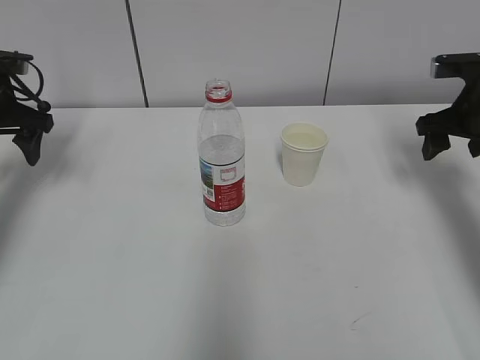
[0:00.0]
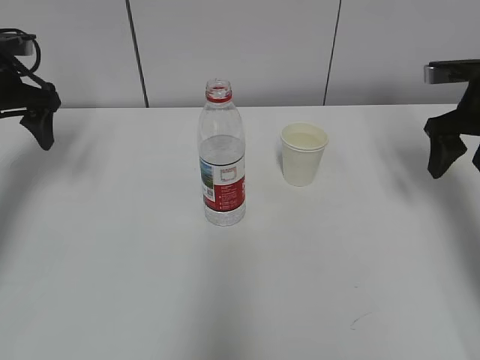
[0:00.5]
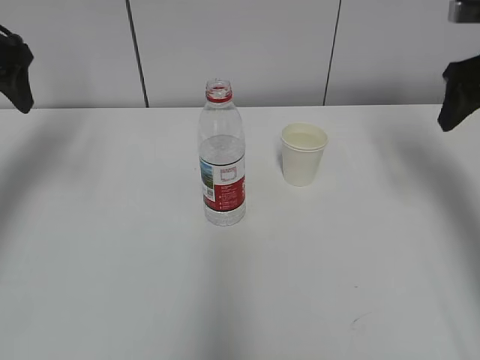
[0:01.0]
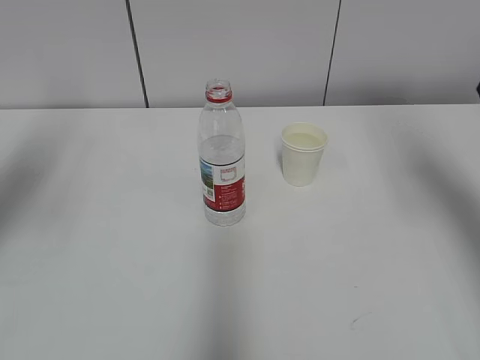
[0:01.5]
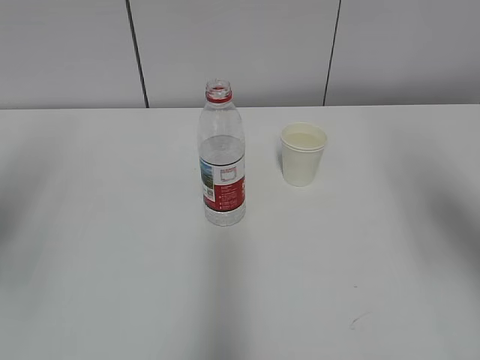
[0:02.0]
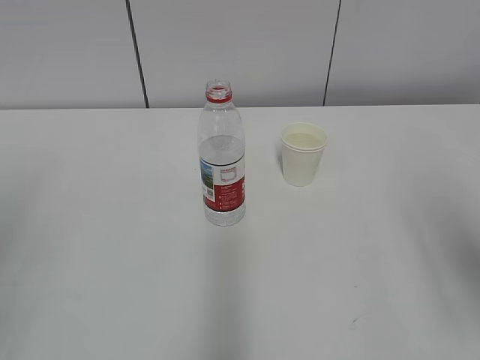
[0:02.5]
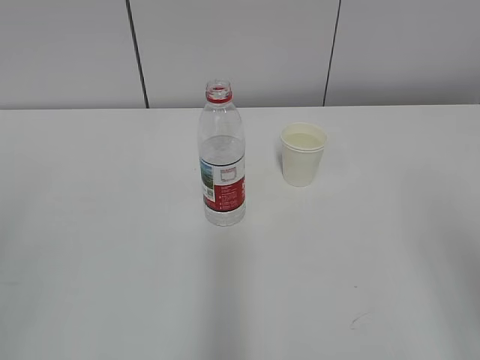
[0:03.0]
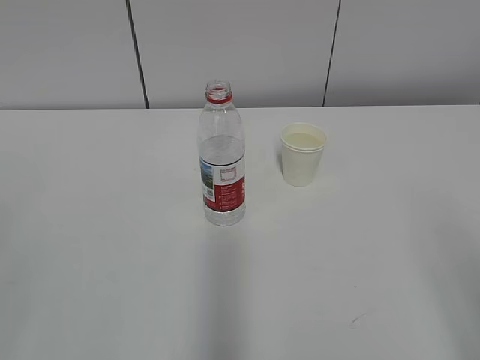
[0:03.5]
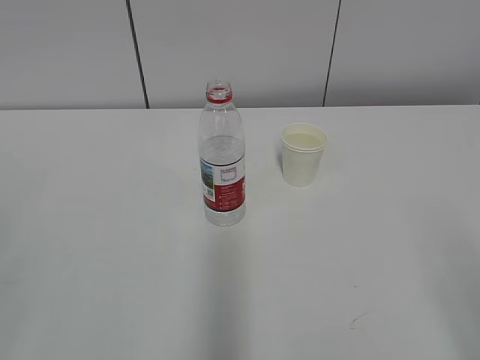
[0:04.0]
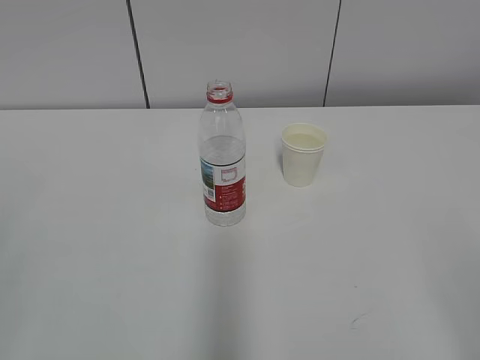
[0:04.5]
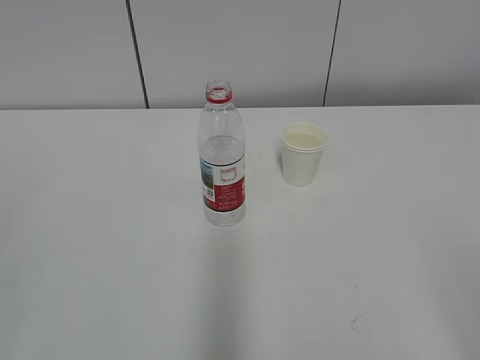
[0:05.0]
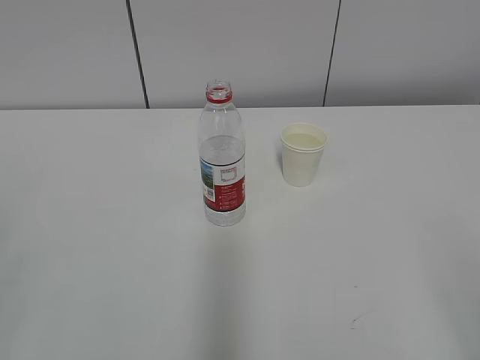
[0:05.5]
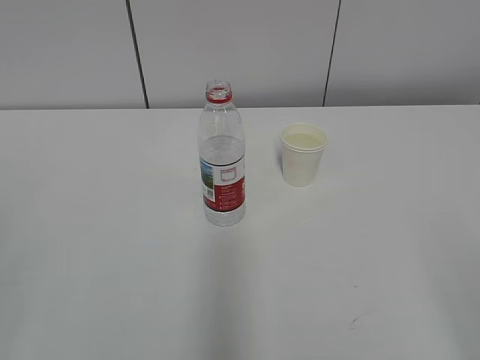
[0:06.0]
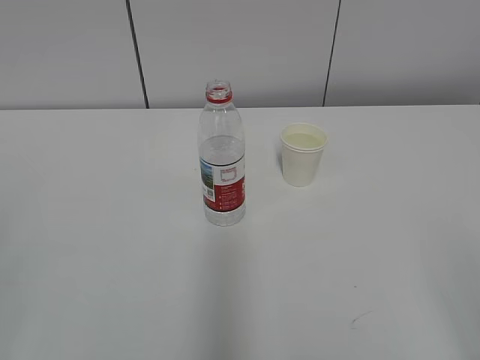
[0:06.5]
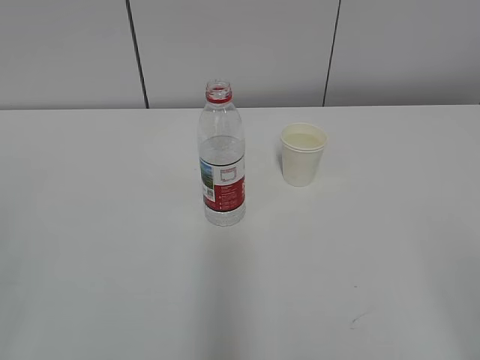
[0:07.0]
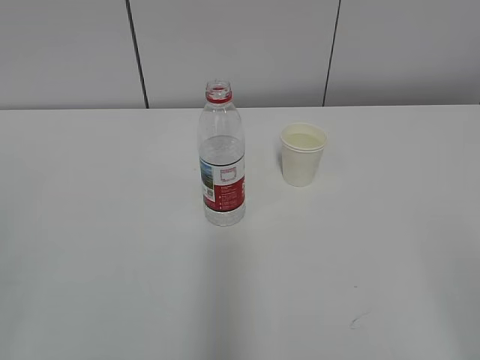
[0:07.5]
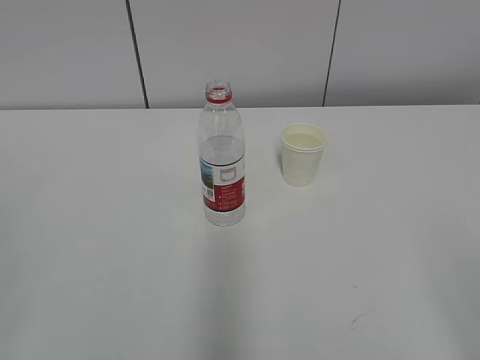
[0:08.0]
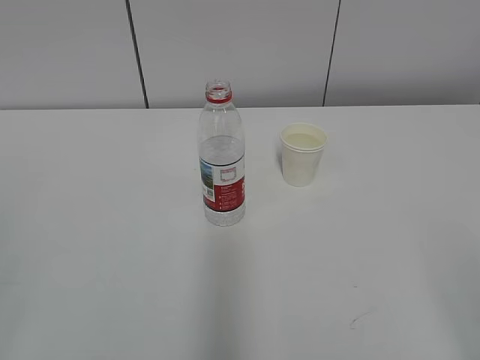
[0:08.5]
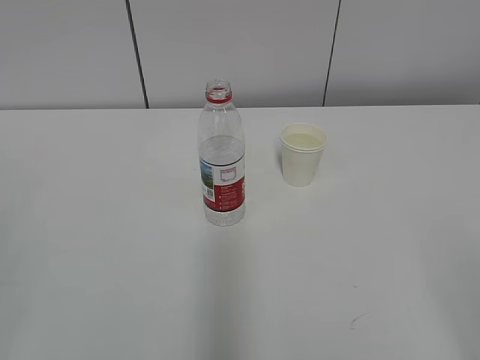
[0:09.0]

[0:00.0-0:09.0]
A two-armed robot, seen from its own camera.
0:00.0 to 0:02.0: The two grippers go approximately 25 cm backward and upward.
0:02.0 to 0:04.5: The right gripper is displaced backward by approximately 25 cm.
0:04.5 to 0:09.0: The two grippers keep their place.

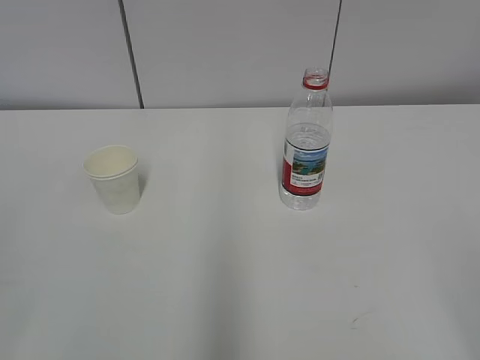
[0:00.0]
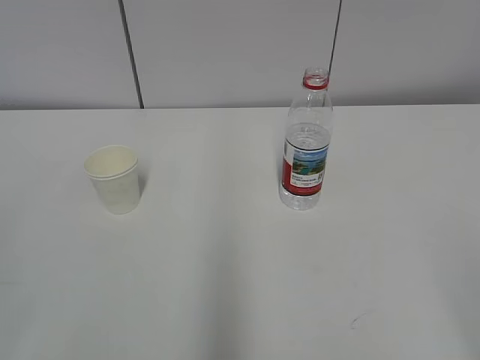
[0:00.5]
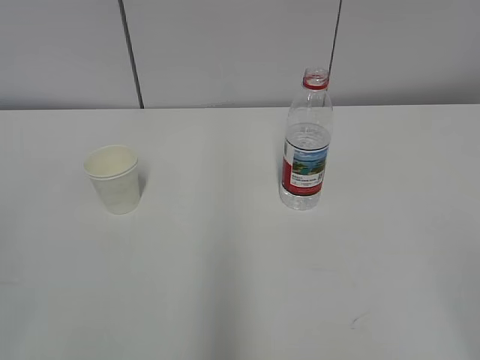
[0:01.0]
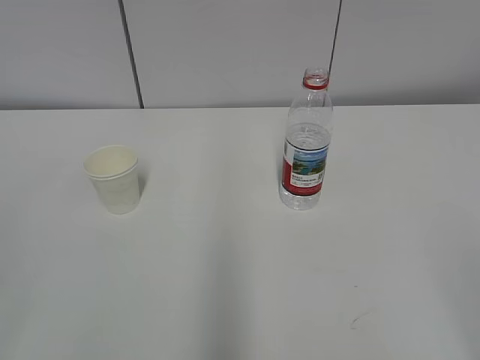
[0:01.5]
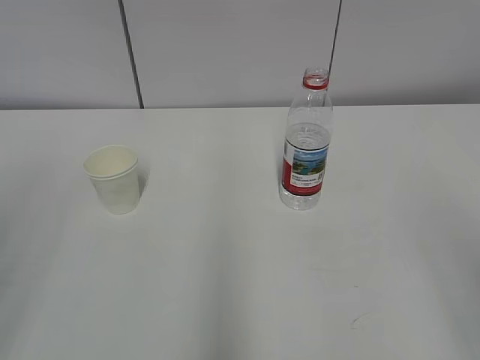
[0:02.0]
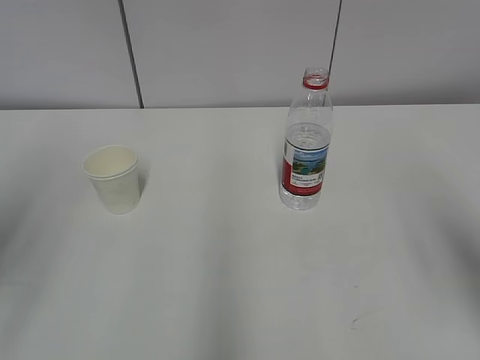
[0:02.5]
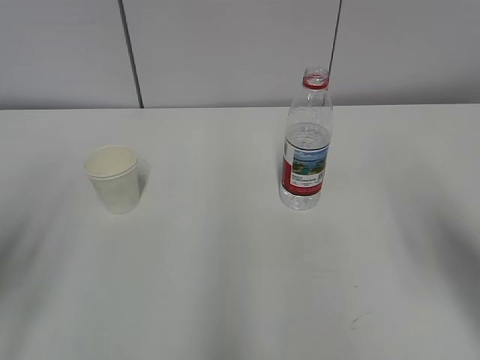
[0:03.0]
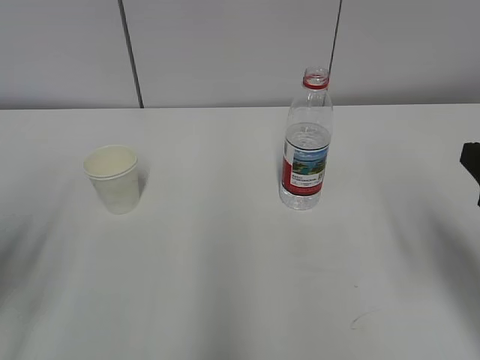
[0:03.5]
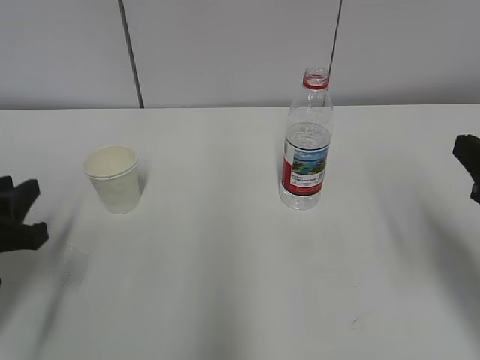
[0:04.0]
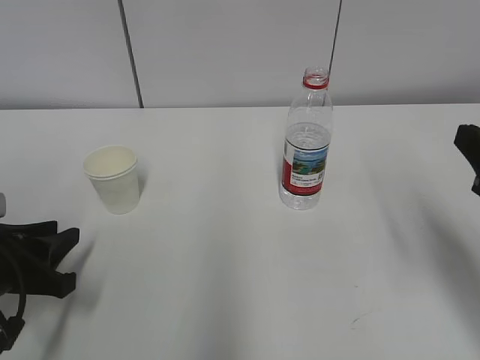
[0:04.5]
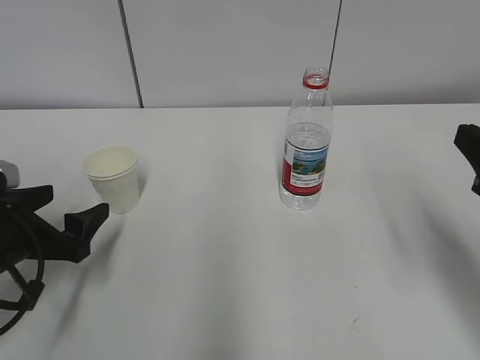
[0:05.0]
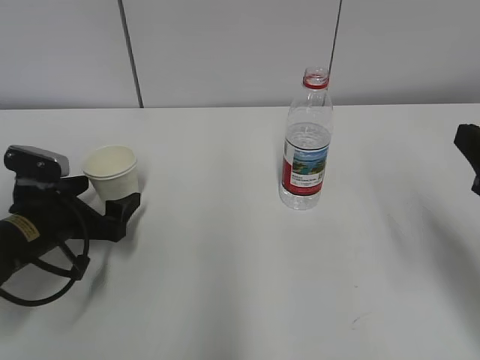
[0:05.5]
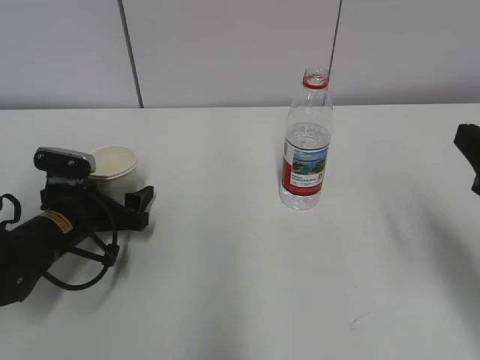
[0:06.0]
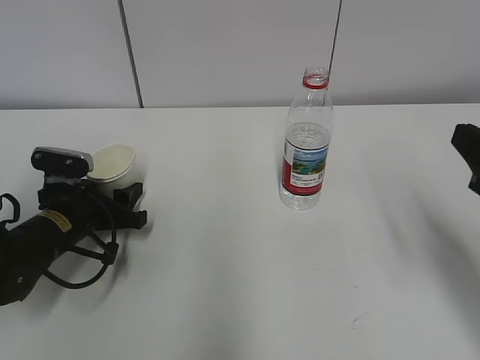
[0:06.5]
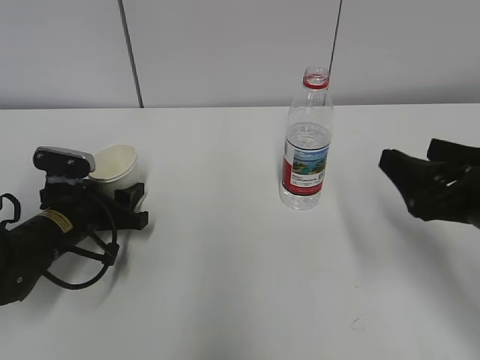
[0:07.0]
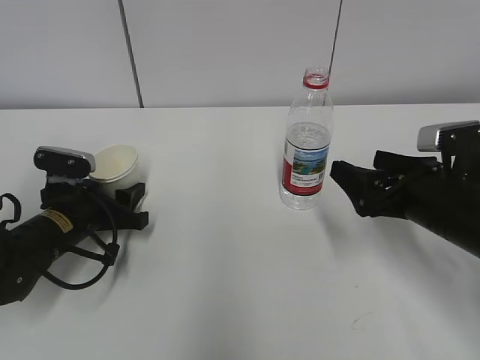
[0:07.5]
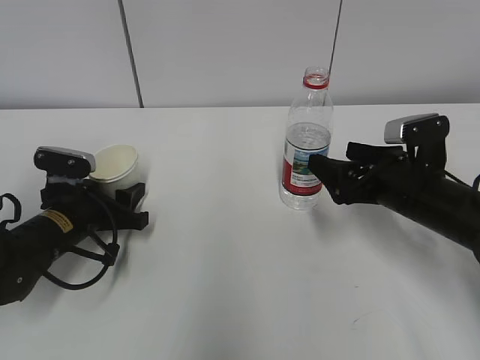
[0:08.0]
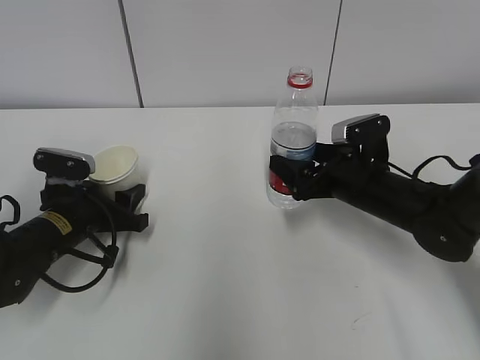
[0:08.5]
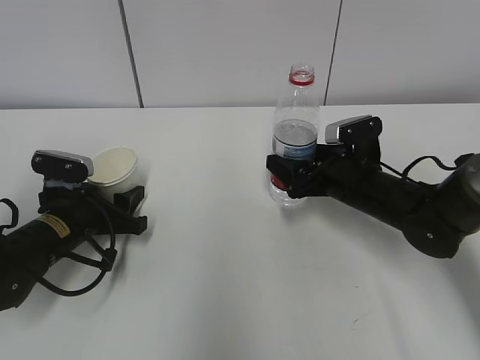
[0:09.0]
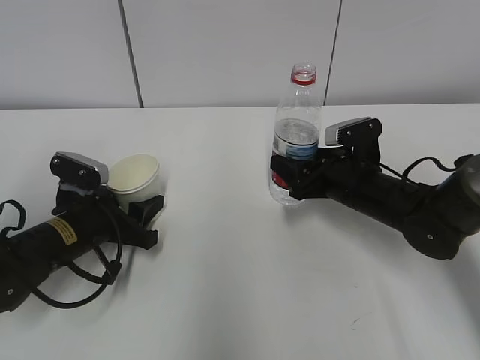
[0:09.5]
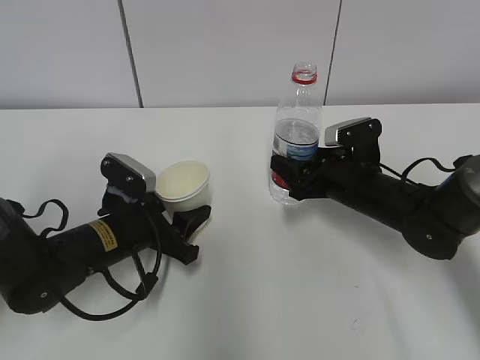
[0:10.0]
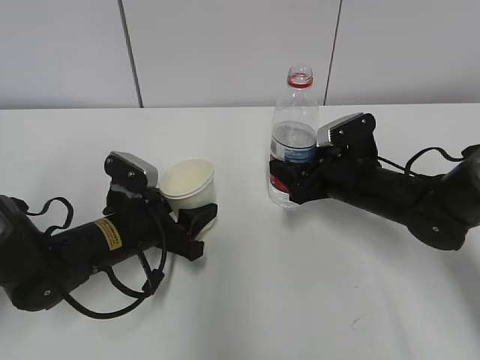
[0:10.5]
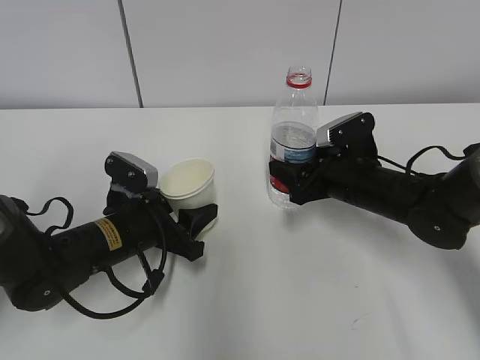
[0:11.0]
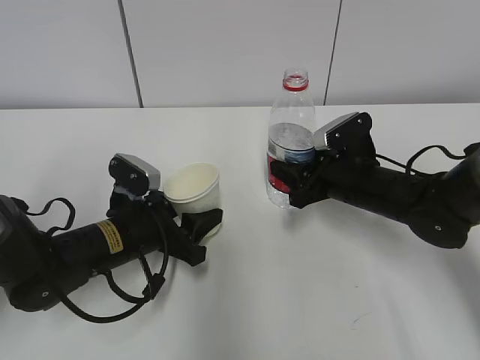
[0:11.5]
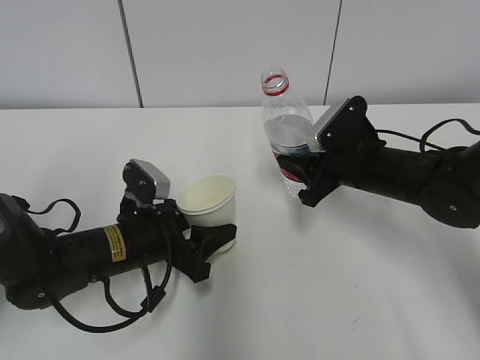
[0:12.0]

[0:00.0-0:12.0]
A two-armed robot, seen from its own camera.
Step, 0:00.0 to 0:08.0: Grab the paper cup with the left hand.
Step, 0:08.5 to 0:09.5: Grab the water bottle with the right hand.
0:02.0 to 0:04.0: The right gripper is displaced forward and downward by some 15 cm. Meanwhile the left gripper is displaced downward and forward by roughly 25 cm.
0:04.0 to 0:06.0: The left gripper moves forward, downward and to the right, some 15 cm, and opens up.
0:06.0 to 0:08.0: The right gripper is displaced forward and downward by roughly 20 cm, and opens up. Meanwhile the left gripper closes.
0:08.0 to 0:10.0: The right gripper goes some 5 cm forward, and closes its fingers, while the left gripper shifts some 5 cm to the right.
0:10.0 to 0:12.0: The right gripper closes up.

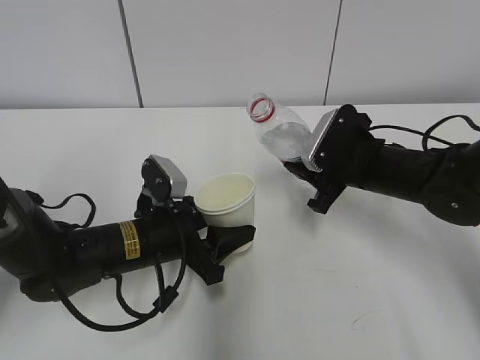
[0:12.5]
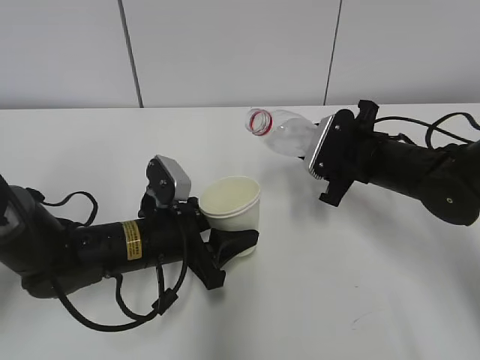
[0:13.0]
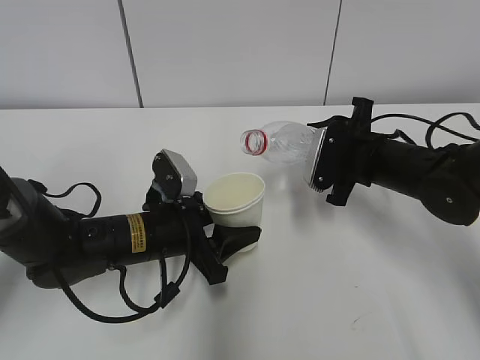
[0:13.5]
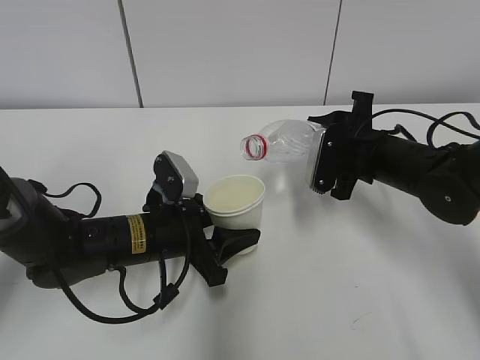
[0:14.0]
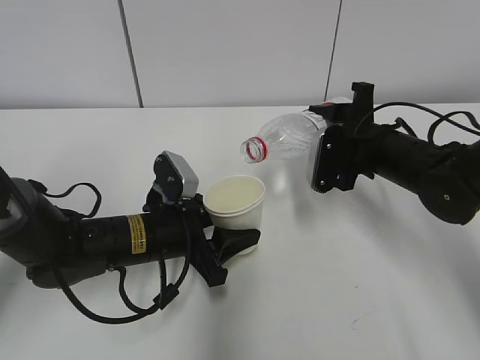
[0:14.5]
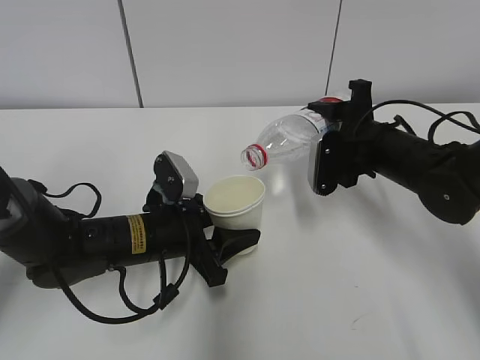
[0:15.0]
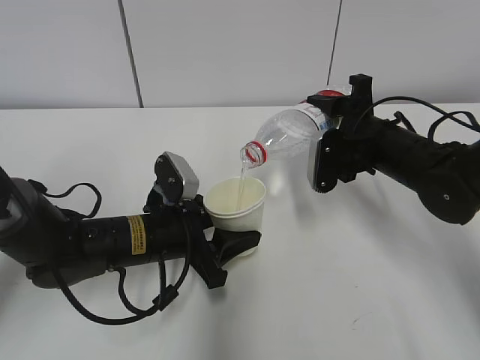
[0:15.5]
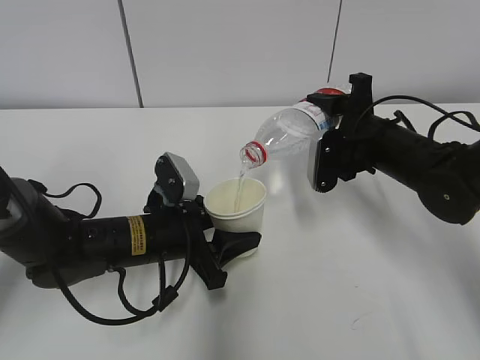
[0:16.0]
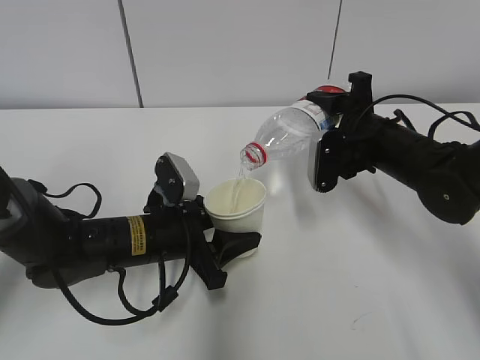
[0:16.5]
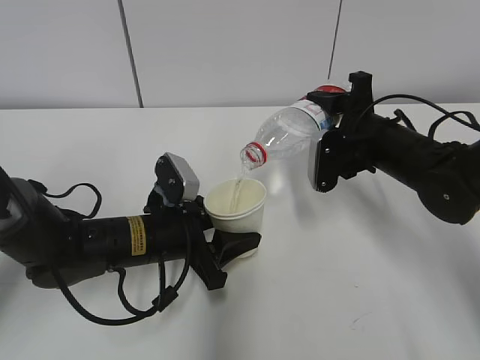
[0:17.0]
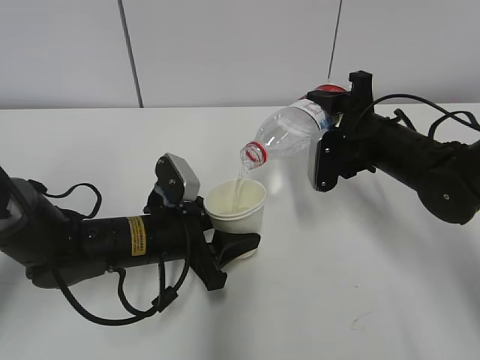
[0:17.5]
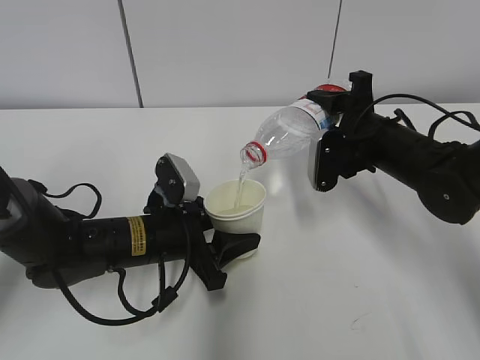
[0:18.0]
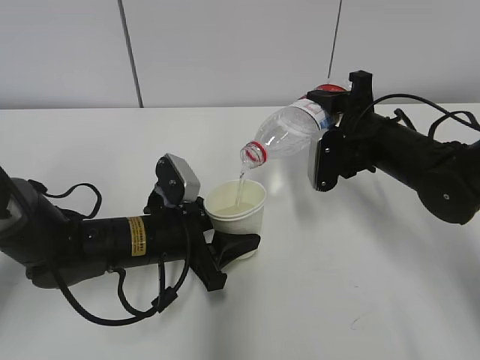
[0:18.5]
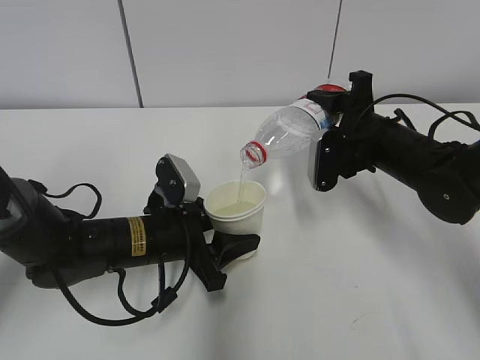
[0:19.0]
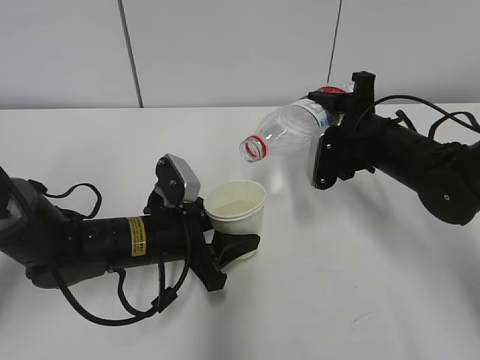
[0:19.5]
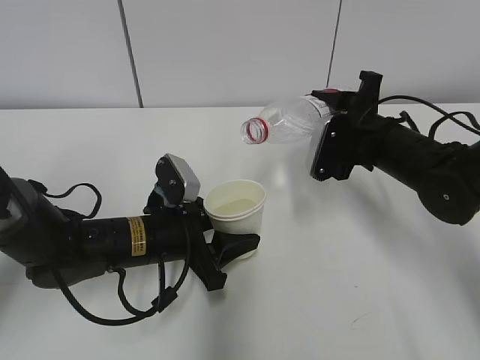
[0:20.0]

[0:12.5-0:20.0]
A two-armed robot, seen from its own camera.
Step, 0:13.0 to 0:16.0: Fill water with the left hand.
Step, 0:13.0 to 0:16.0: Pour water with the right hand.
0:14.5 to 0:16.5: The grippers move only a little.
0:16.5 to 0:18.0: Neither gripper changes place.
0:18.0 to 0:20.0: The grippers make only small movements.
